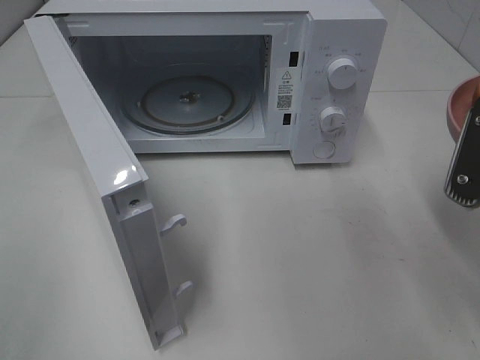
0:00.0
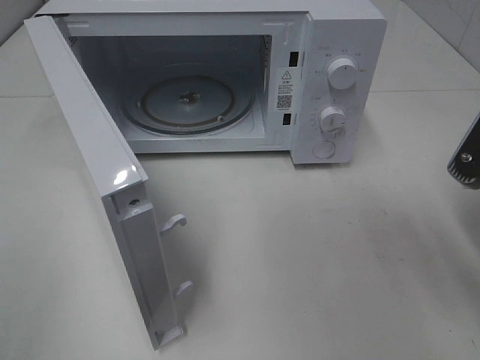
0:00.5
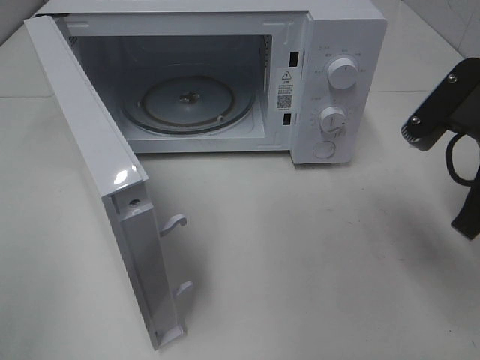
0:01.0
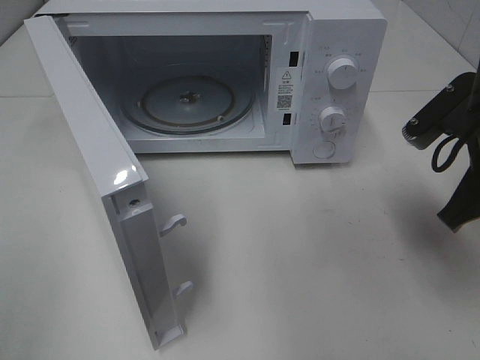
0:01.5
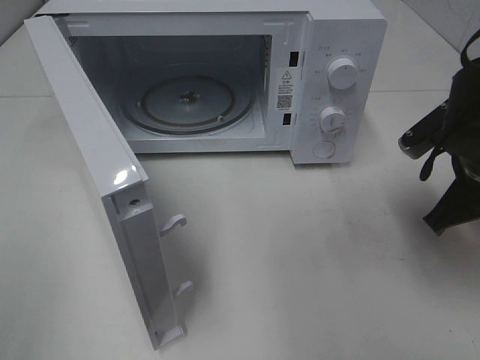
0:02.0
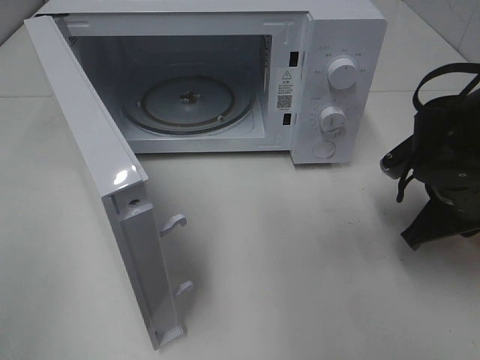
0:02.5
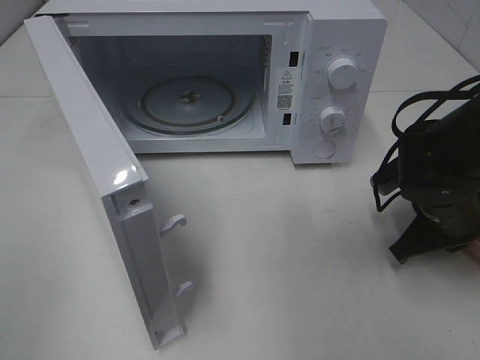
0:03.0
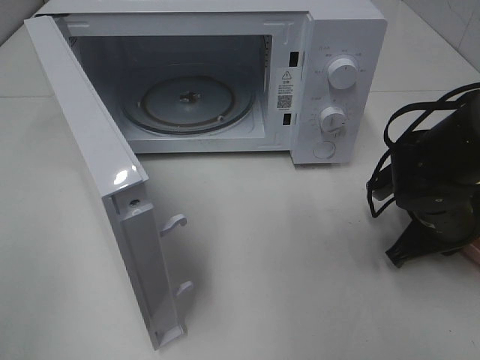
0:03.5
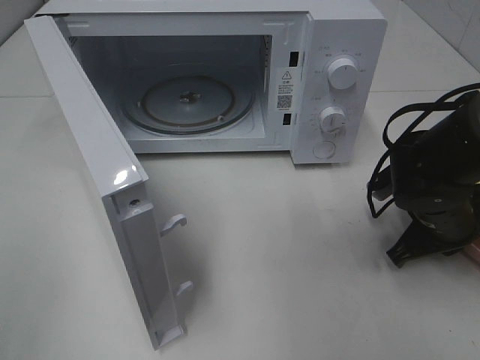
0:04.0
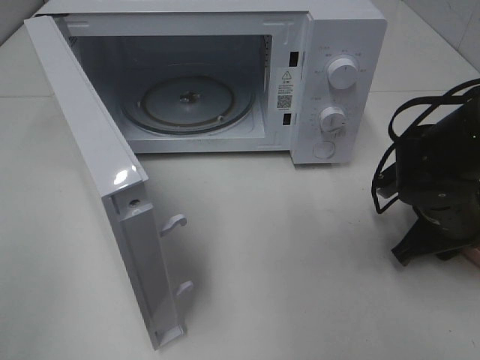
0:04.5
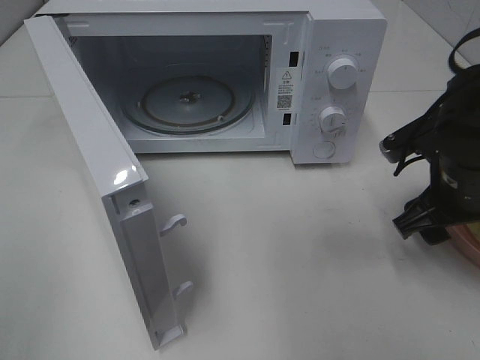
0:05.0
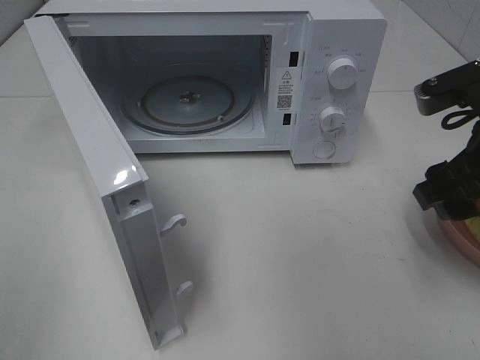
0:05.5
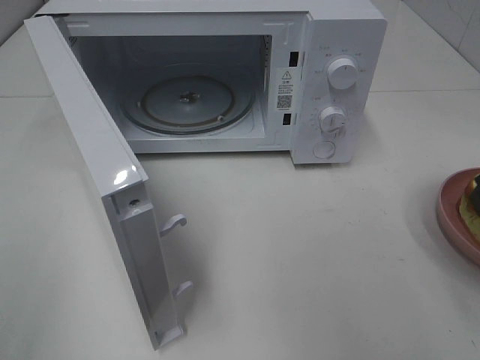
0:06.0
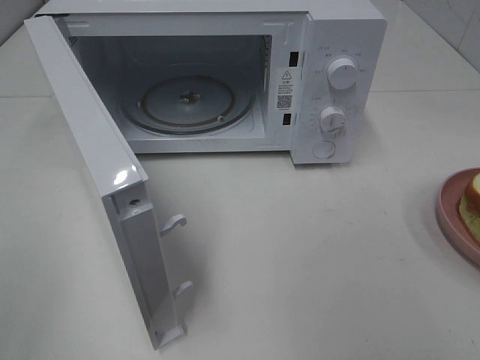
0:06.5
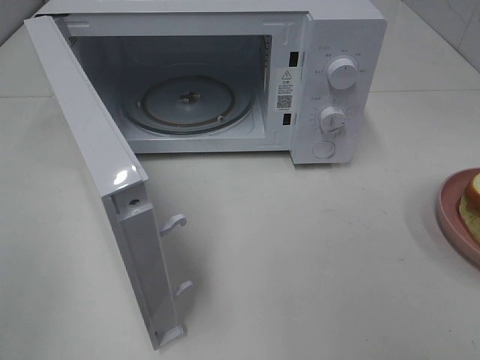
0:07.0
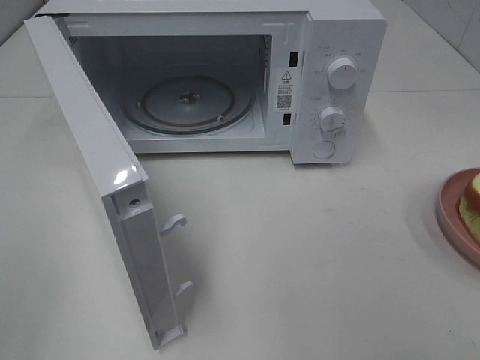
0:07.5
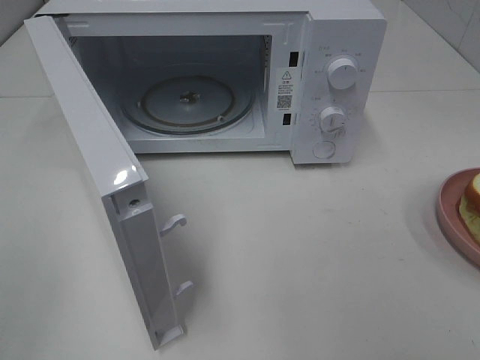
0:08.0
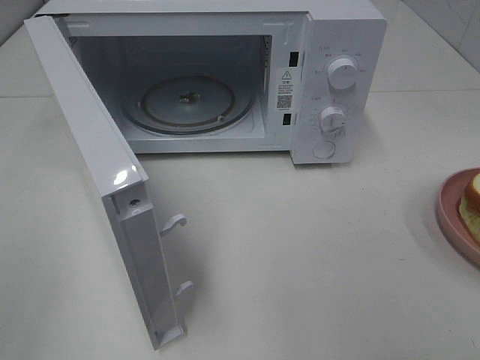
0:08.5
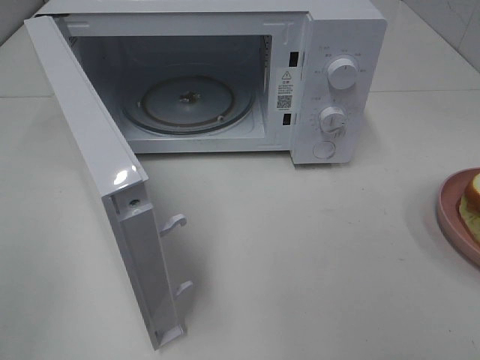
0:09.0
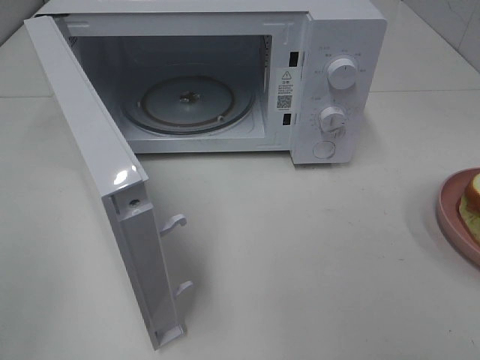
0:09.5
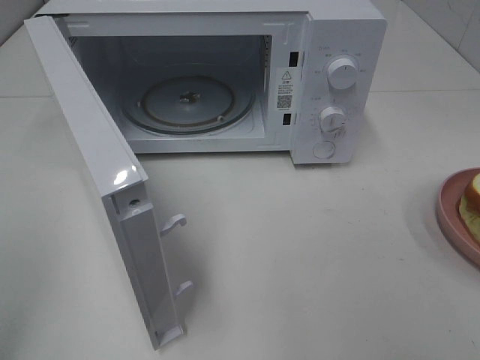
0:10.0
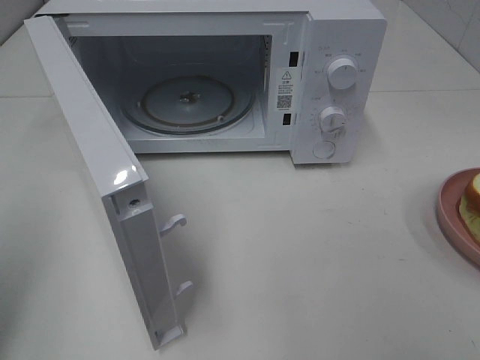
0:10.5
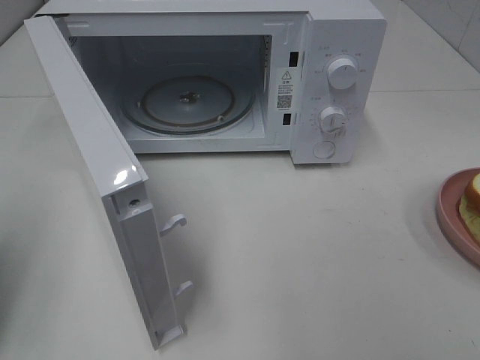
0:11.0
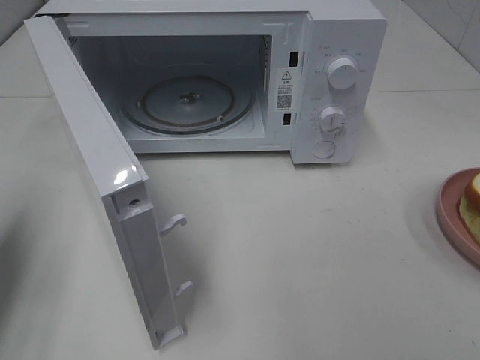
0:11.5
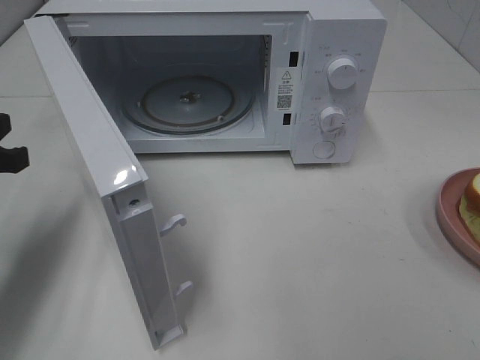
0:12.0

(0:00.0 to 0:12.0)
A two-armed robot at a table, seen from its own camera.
Task of the whole recording: Heat Sandwich.
Step, 0:00.0 - 0:05.0: Right hand: place the plate on the table.
0:00.0 - 0:02.0: The right gripper moves forward and downward, about 15 cm.
0:02.0 - 0:04.0: The right gripper heads downward, covering roughly 10 cm.
0:04.0 - 0:06.0: The right gripper moves upward and backward, some 25 cm, and opens.
0:06.0 - 0:08.0: The right gripper heads backward, covering approximately 15 cm.
0:10.0 - 0:12.0: The left gripper shifts approximately 25 cm forward and downward, and closes.

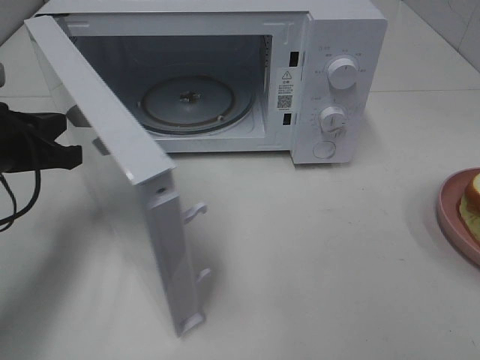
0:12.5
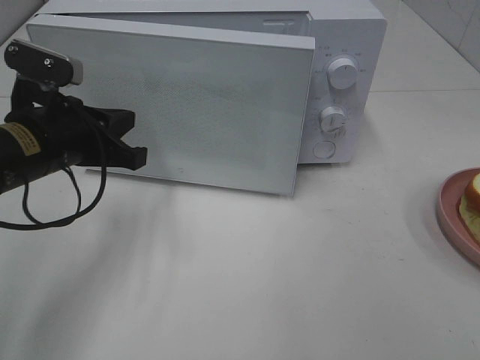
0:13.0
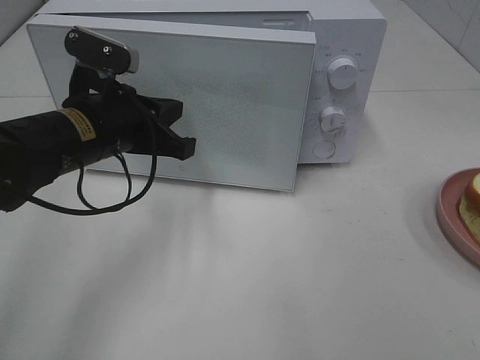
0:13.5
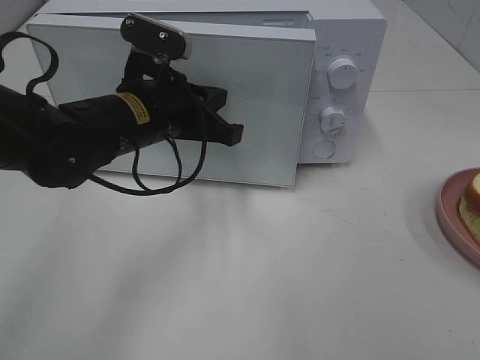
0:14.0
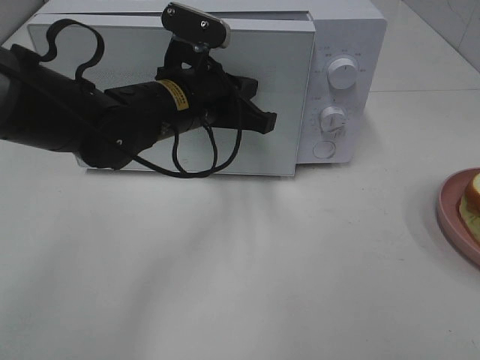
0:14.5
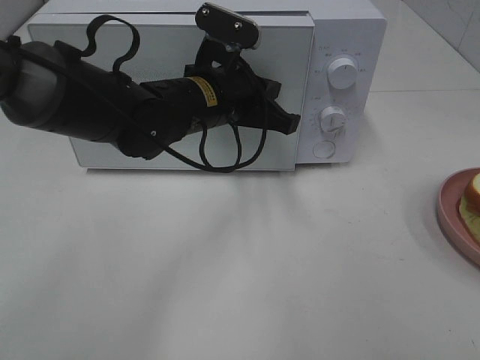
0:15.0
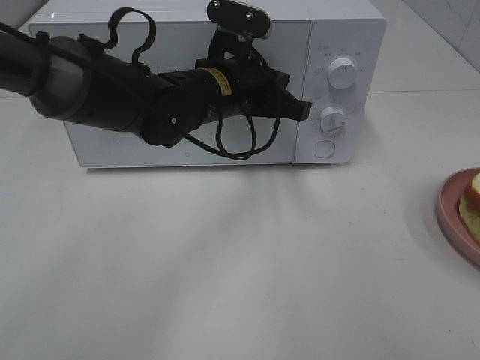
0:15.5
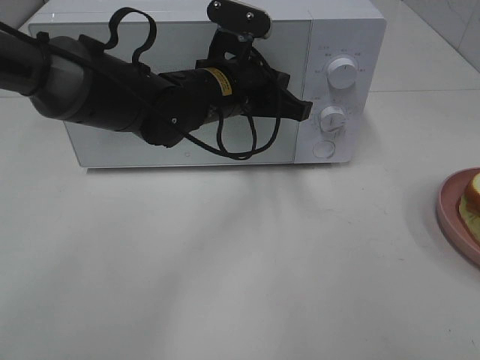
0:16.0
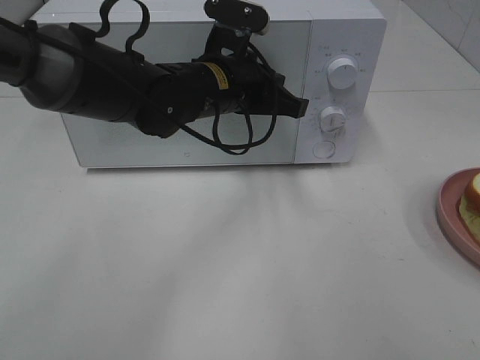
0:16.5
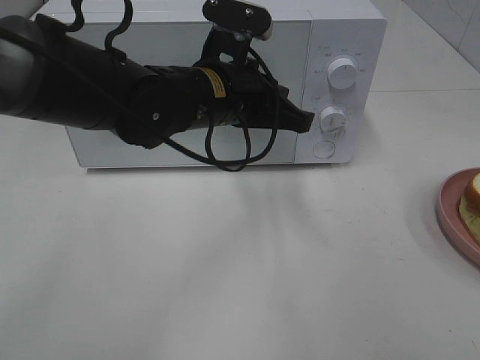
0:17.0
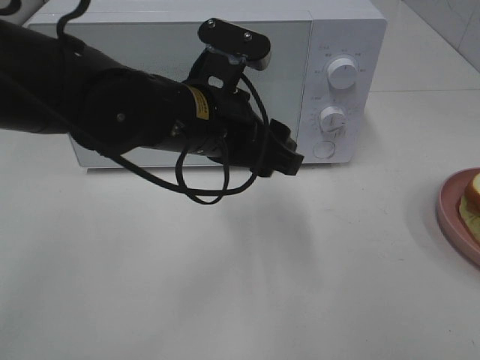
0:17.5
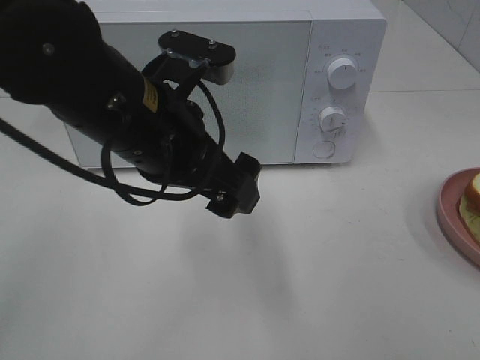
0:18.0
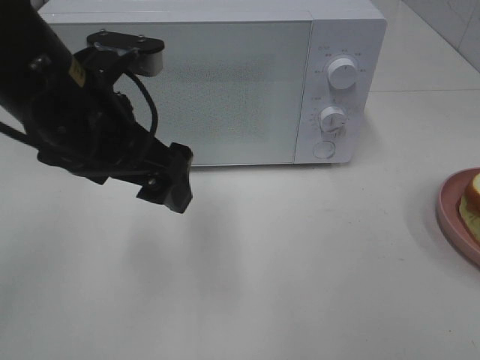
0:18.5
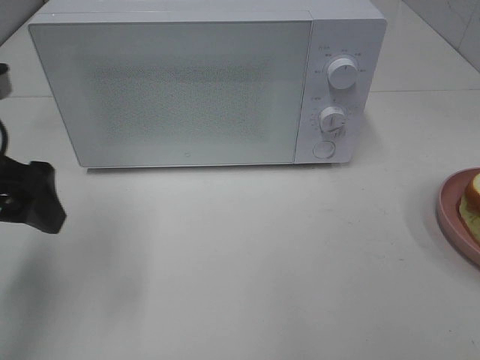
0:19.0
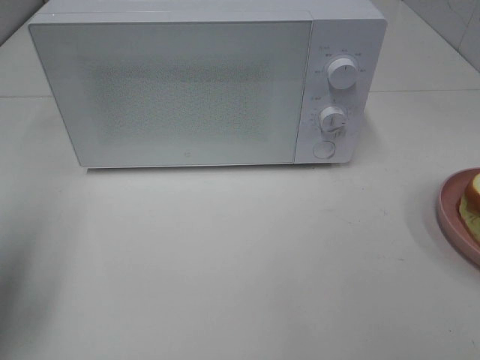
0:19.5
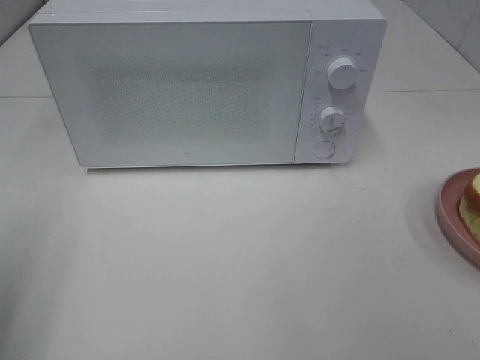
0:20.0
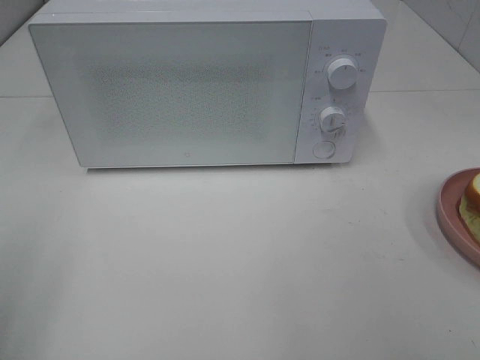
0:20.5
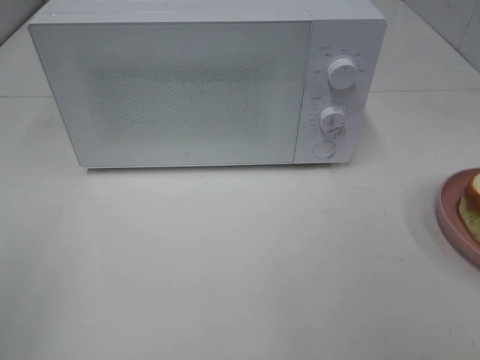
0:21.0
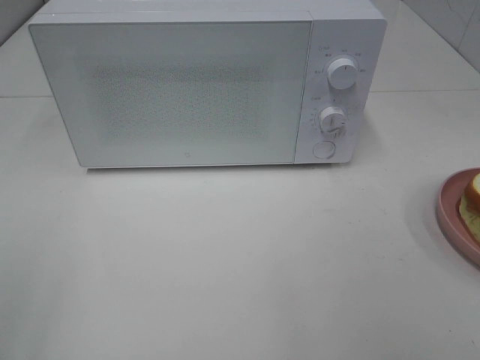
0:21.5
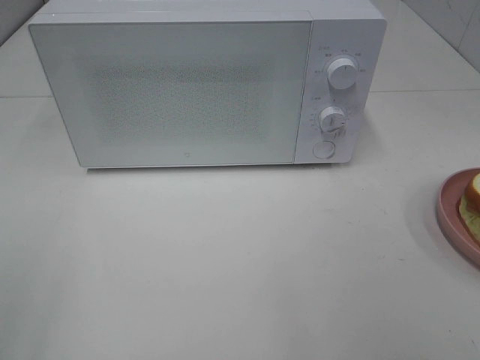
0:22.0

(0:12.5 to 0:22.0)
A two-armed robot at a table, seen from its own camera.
Task of the whole recording: Heat Sandwich.
Step, 0:12.5 - 0:16.5: Left hand: close the microwave door.
0:12.5 - 0:14.5: The left gripper is displaced to the right by about 20 cm.
0:14.5 - 0:16.5: The grippers make only small movements.
0:16.5 - 0:18.0: The left gripper travels backward, to the left and upward by about 15 cm, and opens up.
0:18.0 - 0:20.0: The left gripper heads to the left and backward, covering roughly 30 cm.
